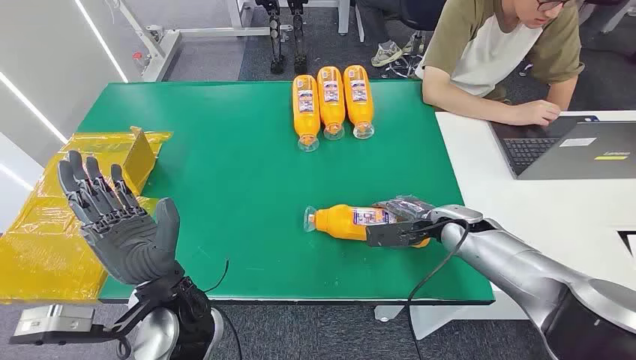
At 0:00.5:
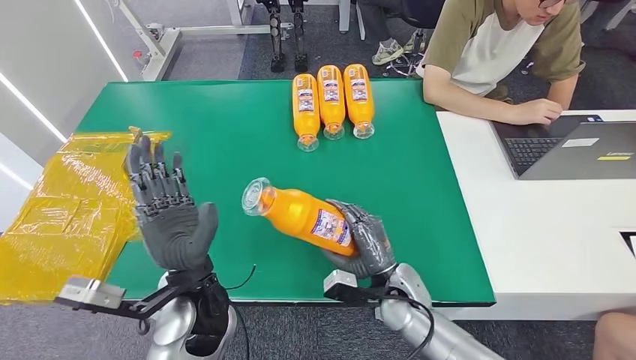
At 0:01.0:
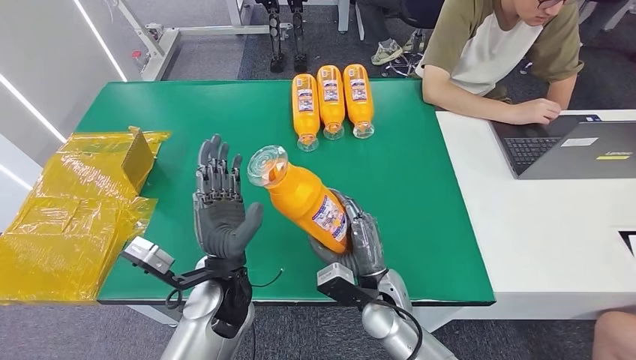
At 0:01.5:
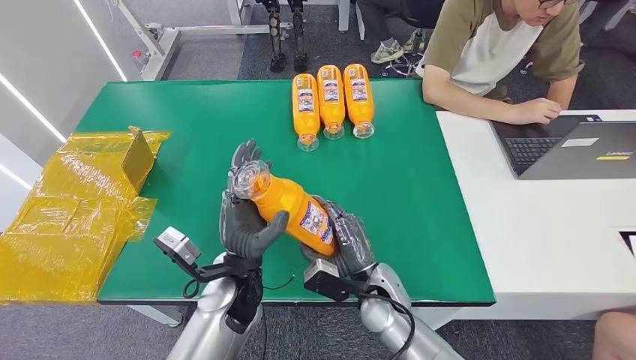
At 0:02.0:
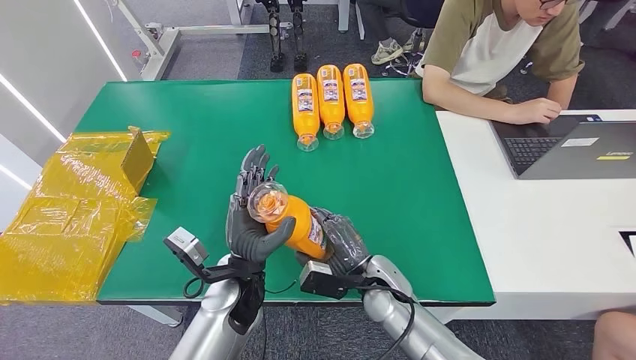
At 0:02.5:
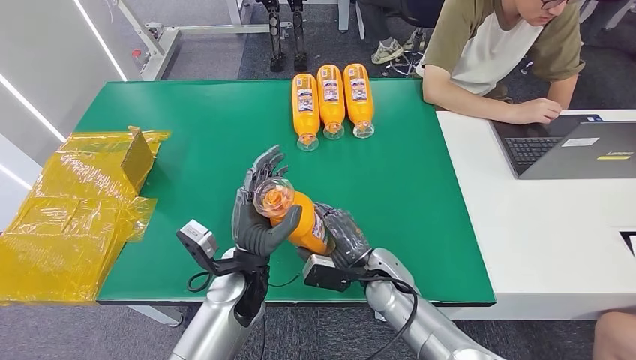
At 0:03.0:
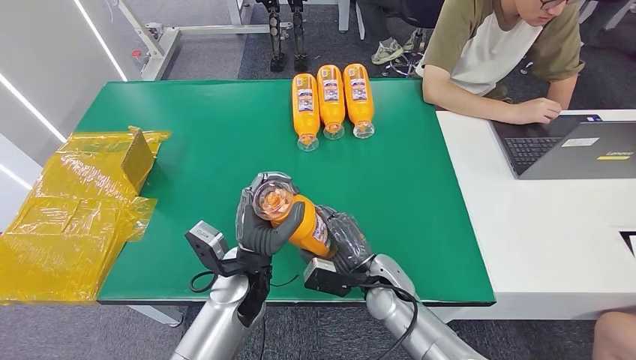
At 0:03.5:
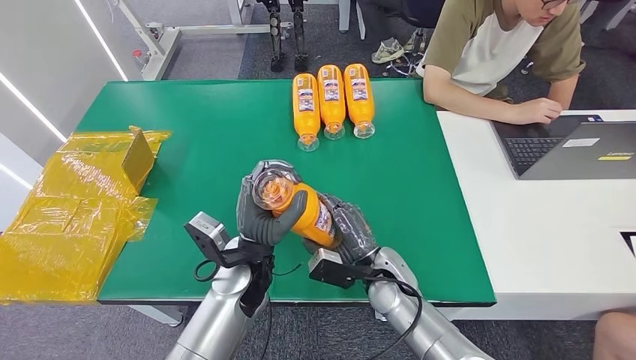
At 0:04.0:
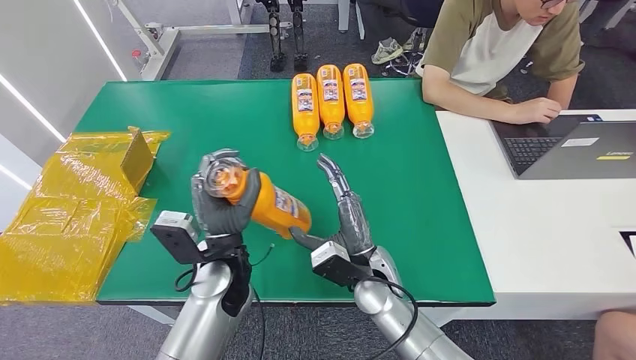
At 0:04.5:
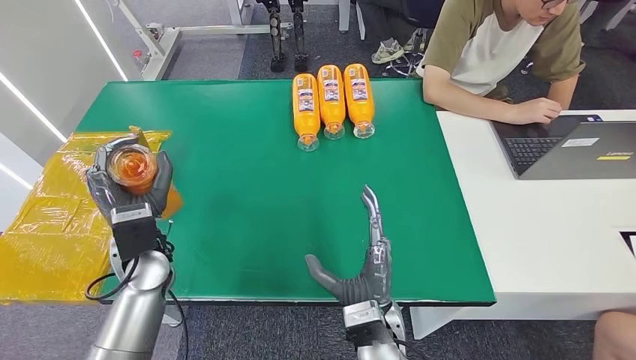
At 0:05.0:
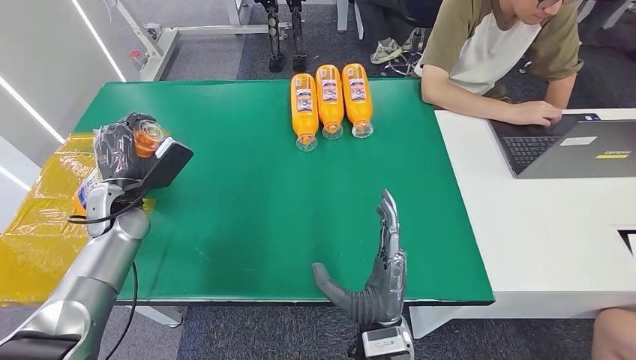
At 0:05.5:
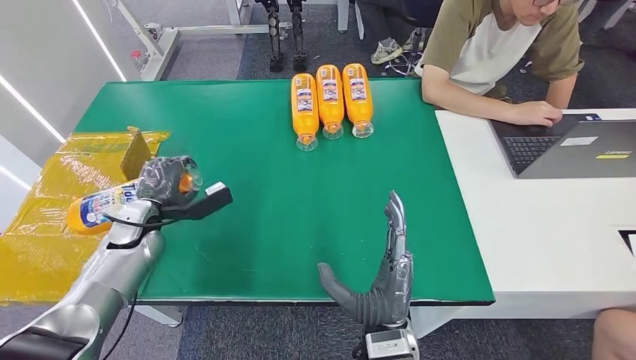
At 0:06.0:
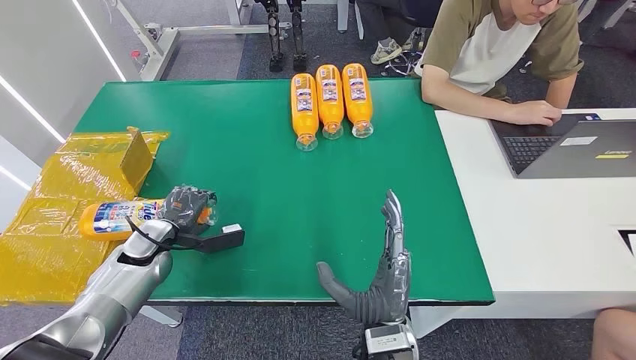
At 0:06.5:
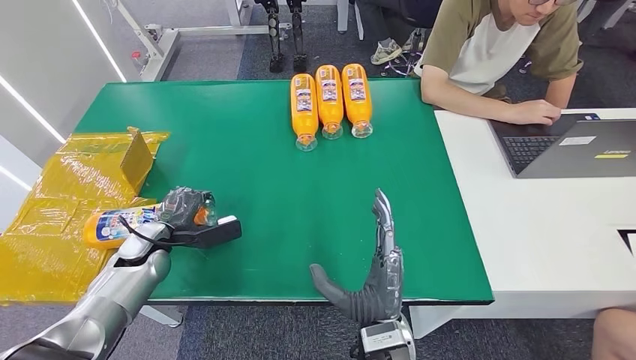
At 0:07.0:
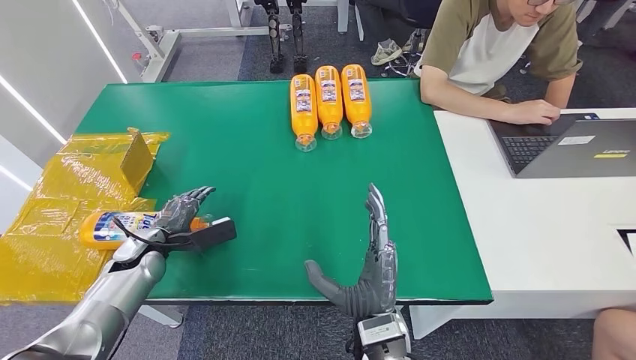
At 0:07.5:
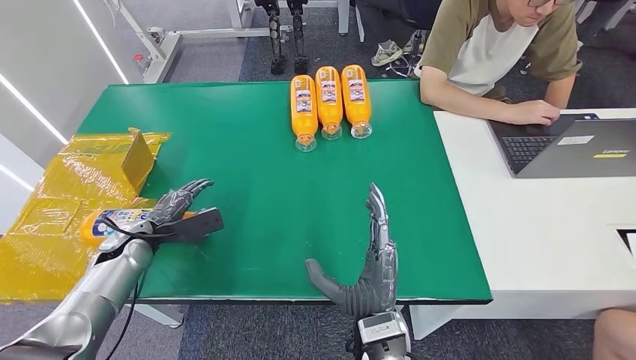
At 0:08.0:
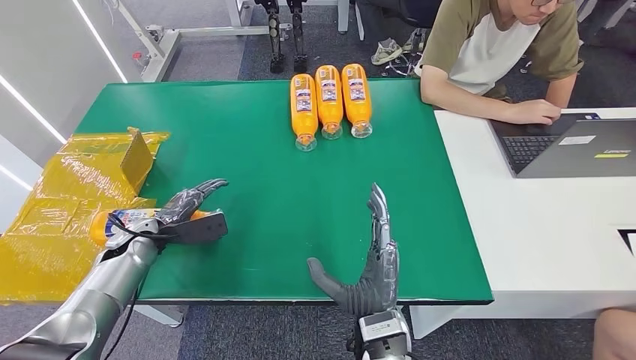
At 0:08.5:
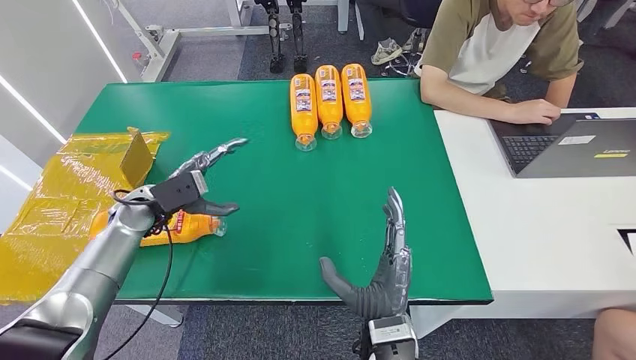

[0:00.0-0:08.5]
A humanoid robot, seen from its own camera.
Step, 0:00.0 to 0:02.5: Pick up the bottle from the table.
Step, 0:03.0 to 0:08.0: Turn the bottle to the front side.
0:04.0 to 0:06.5: The right hand is displaced backward by roughly 10 cm, while the left hand heads to the left, covering roughly 25 cm.
0:06.5 to 0:08.5: The left hand heads upward and forward, covering approximately 10 cm.
